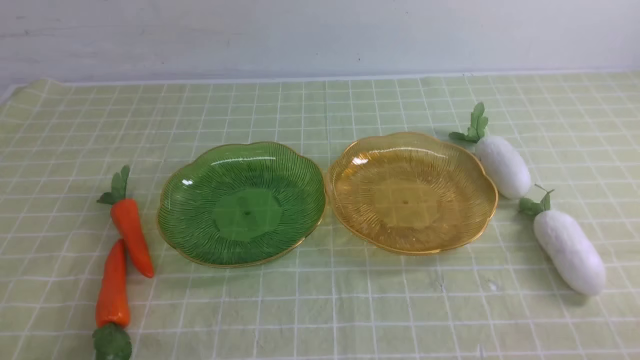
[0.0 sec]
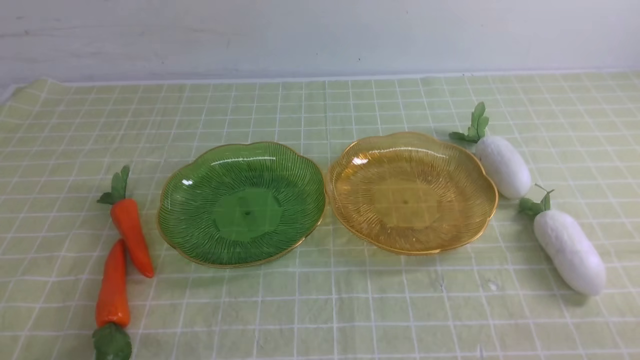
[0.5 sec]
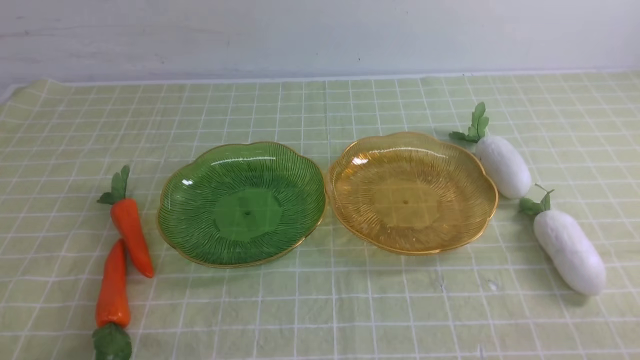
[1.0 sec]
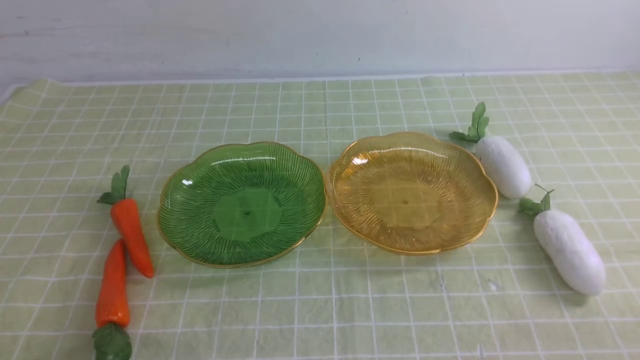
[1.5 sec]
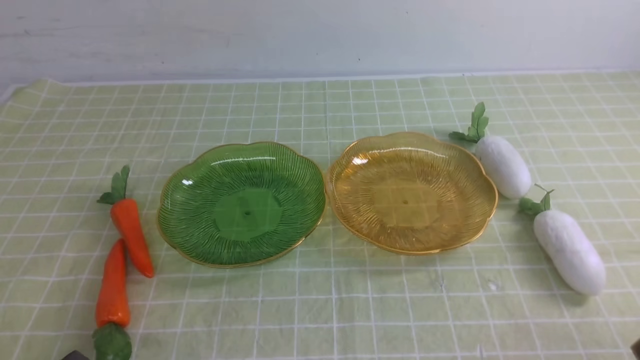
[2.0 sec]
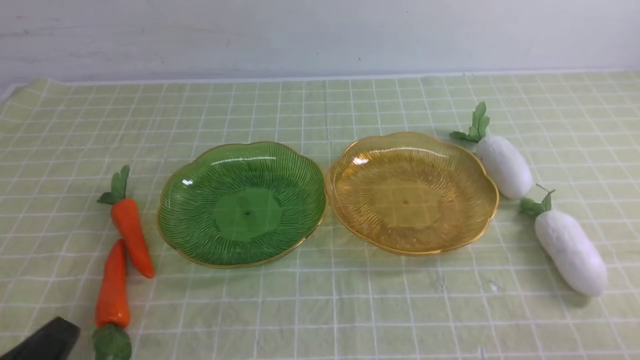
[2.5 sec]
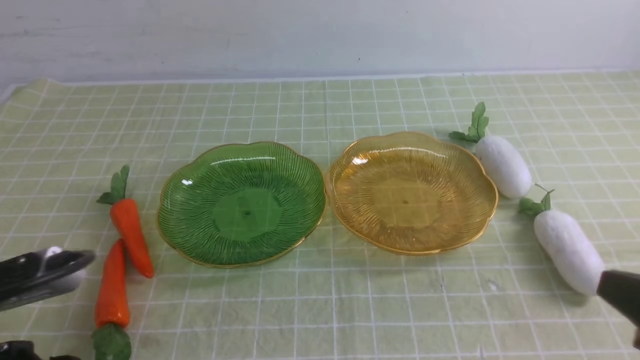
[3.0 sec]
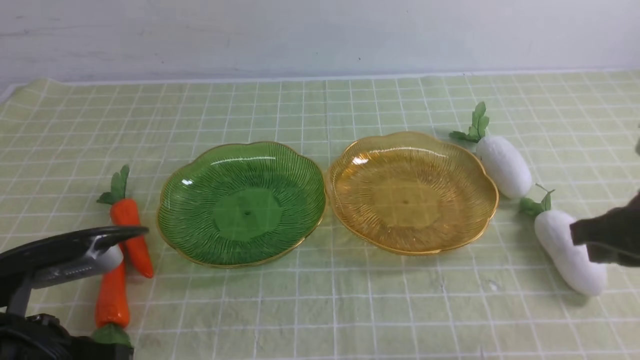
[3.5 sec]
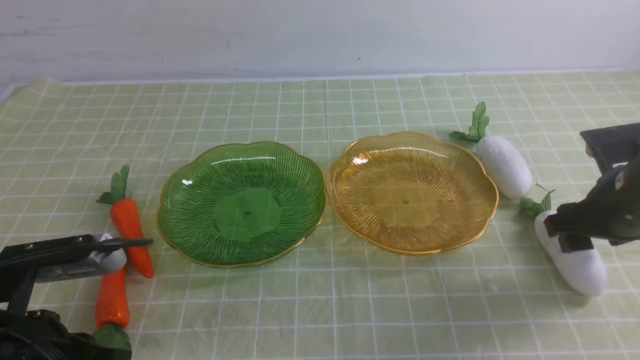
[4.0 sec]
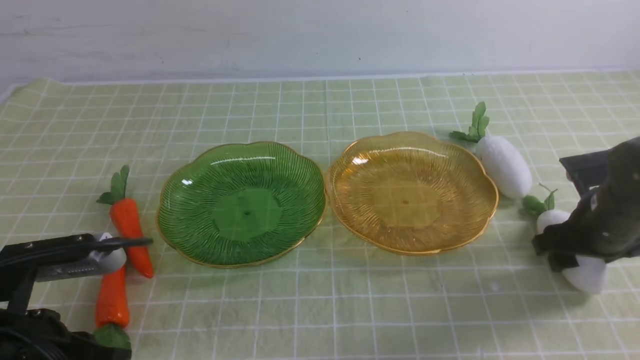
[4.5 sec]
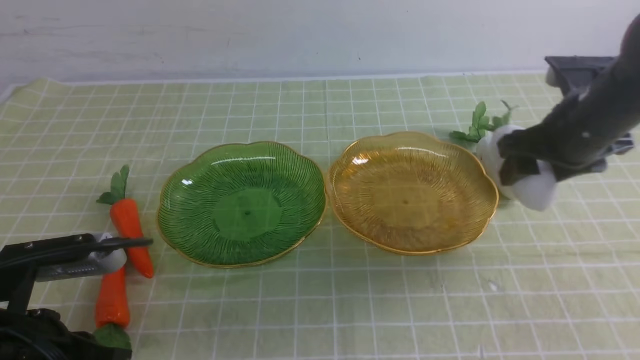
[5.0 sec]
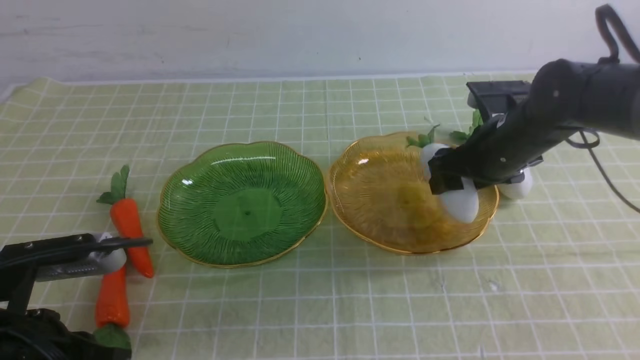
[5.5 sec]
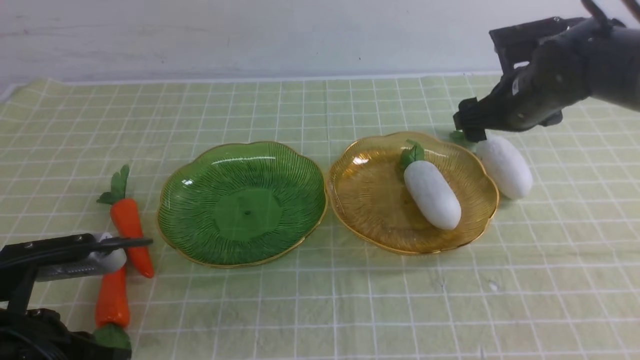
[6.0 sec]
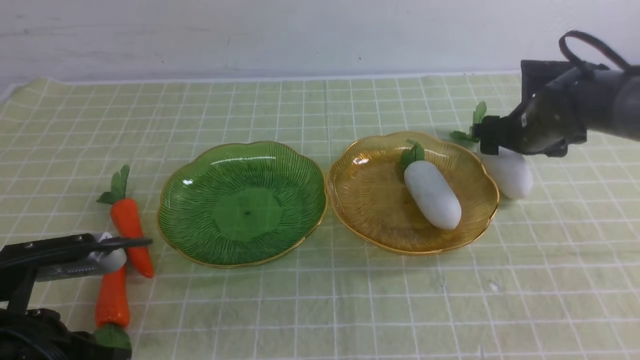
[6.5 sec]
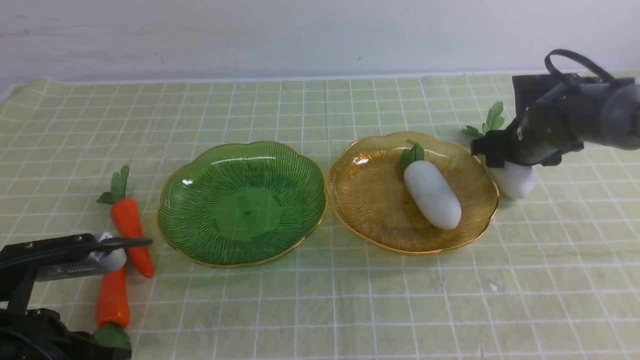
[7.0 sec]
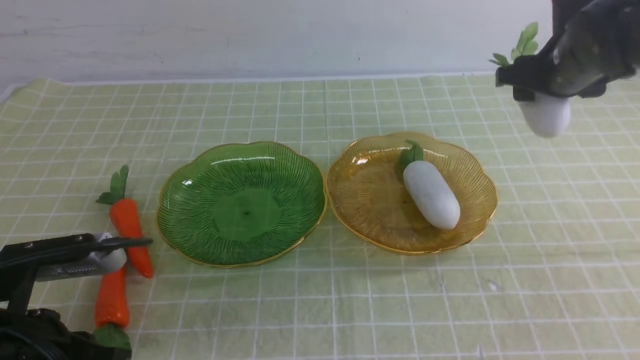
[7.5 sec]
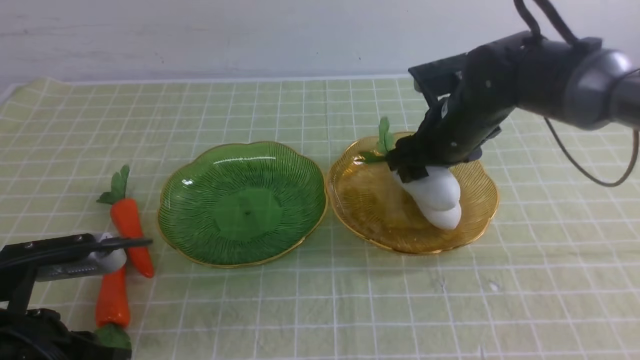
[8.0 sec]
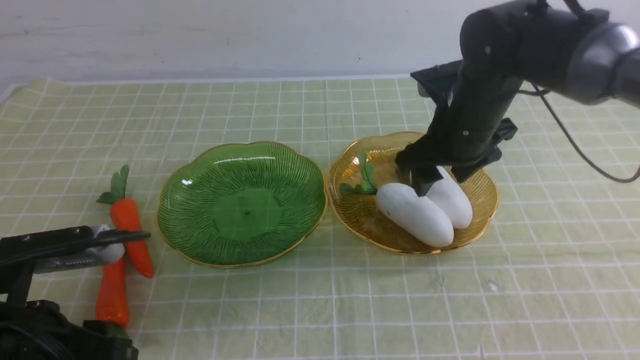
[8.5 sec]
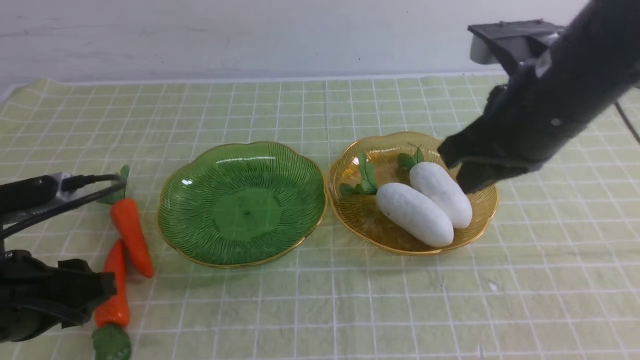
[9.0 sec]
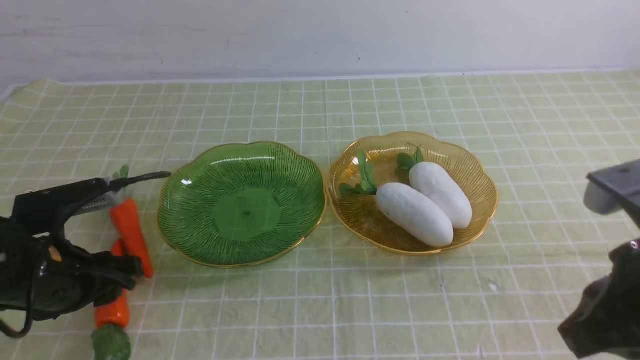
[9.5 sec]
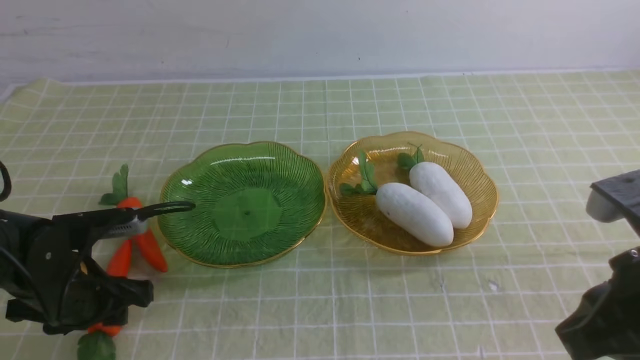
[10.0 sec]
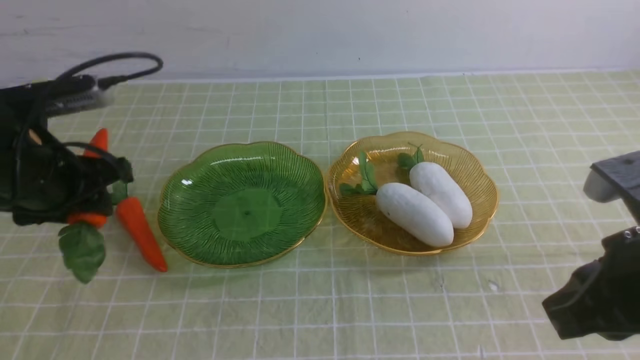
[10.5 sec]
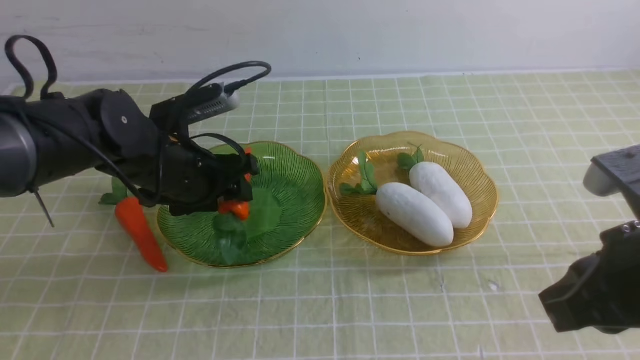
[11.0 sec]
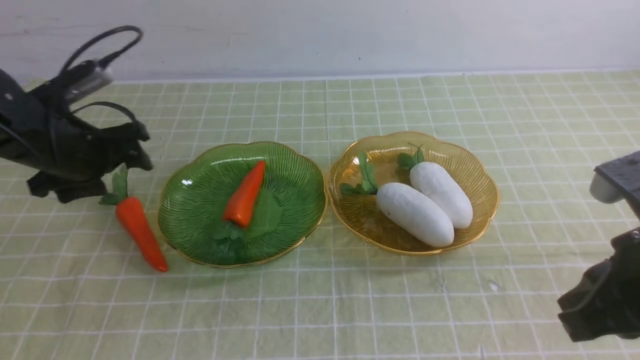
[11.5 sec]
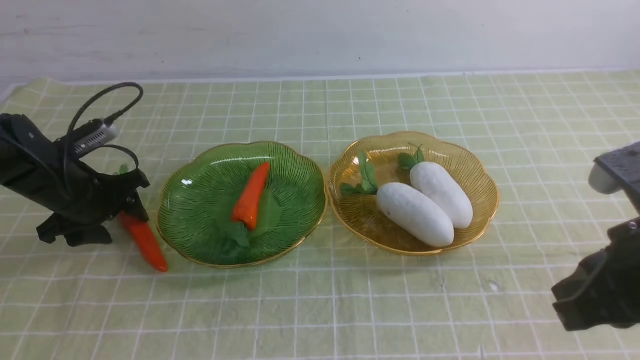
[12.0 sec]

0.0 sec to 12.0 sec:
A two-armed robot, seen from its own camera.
Step, 0.0 sec to 6.5 sec: use the right arm to grab a radish and put it into the right plate.
Step, 7.0 sec to 8.5 sec: use the right arm to grab a radish and put it into the right plate.
2.0 sec to 4.0 sec: The left gripper goes roughly 10 cm forward and upward. Meanwhile the right gripper shifts roughly 25 cm forward, and opens up.
4.0 sec to 6.0 sec: The right gripper shifts approximately 15 cm forward and to the left, and opens up.
6.0 sec to 8.0 sec: The right gripper shifts about 5 cm to the left.
8.0 sec to 10.0 sec: The right gripper travels backward by roughly 25 cm, and closes up; the left gripper shifts approximately 15 cm forward and downward, and opens.
10.0 sec to 12.0 sec: The left gripper travels forward by about 10 cm.

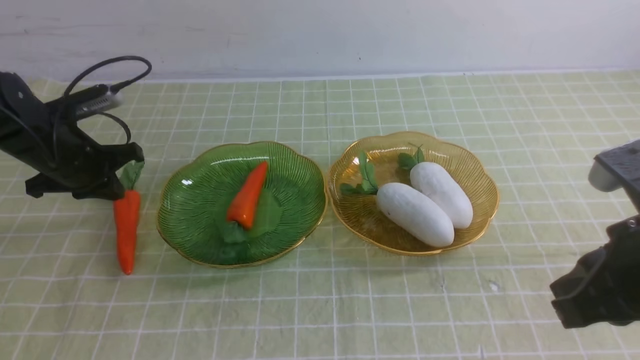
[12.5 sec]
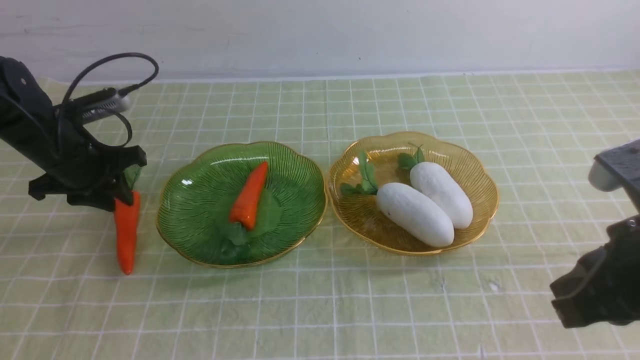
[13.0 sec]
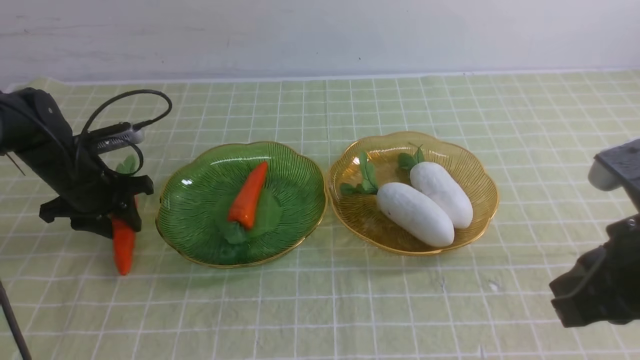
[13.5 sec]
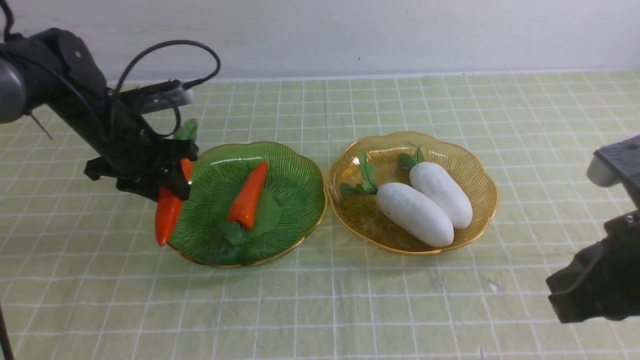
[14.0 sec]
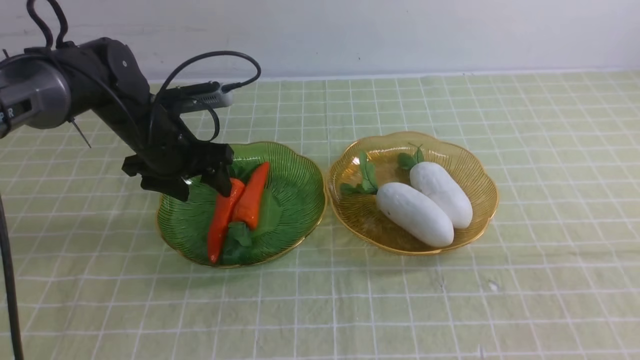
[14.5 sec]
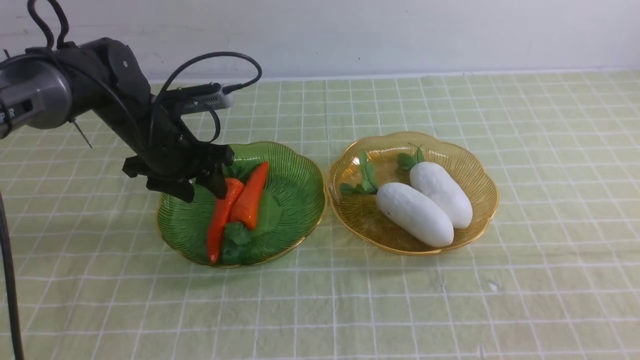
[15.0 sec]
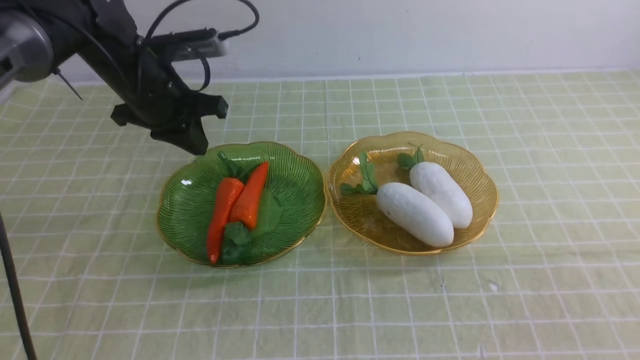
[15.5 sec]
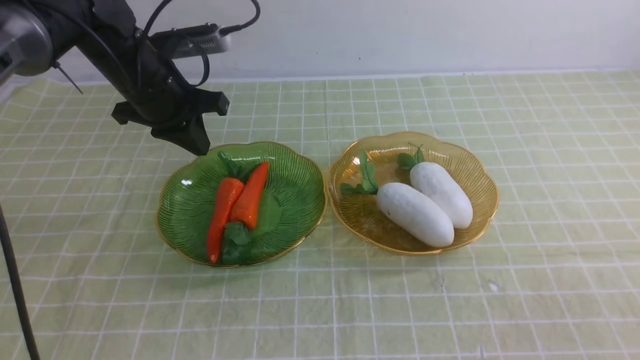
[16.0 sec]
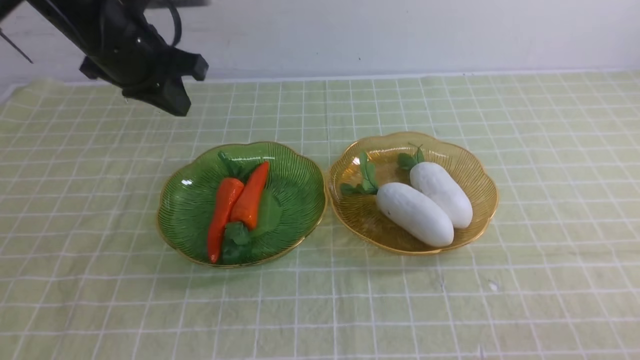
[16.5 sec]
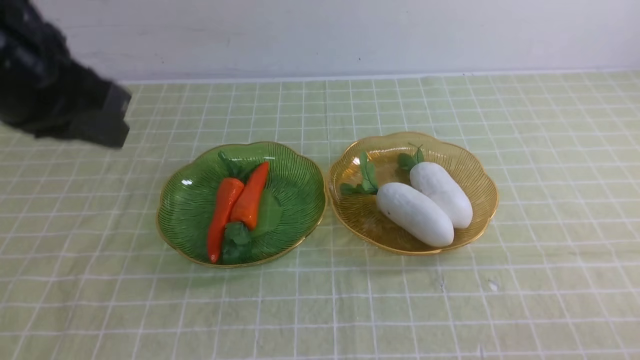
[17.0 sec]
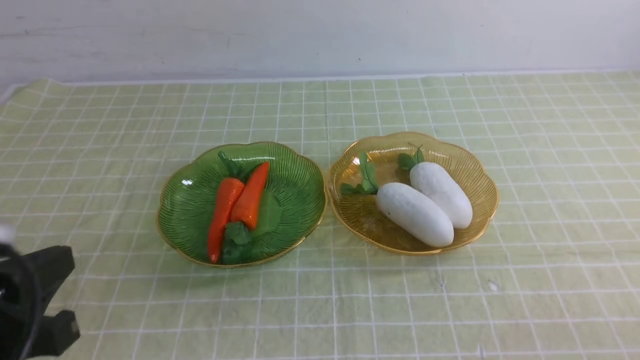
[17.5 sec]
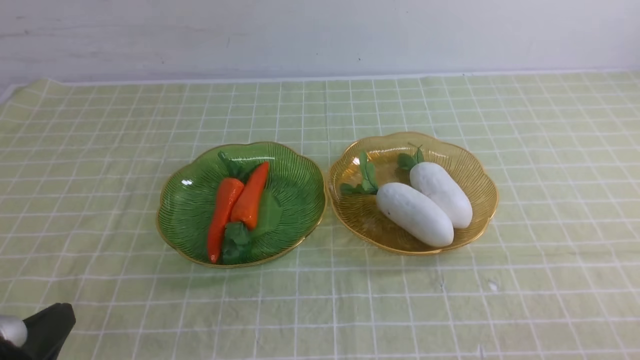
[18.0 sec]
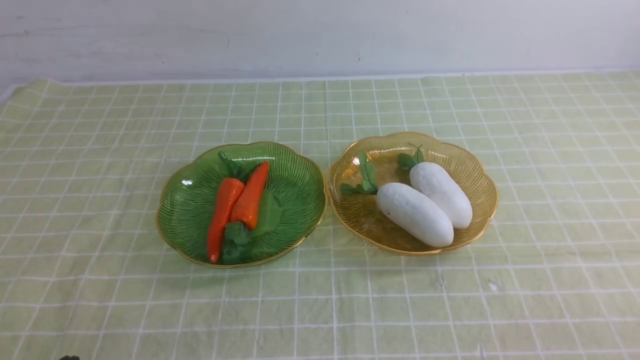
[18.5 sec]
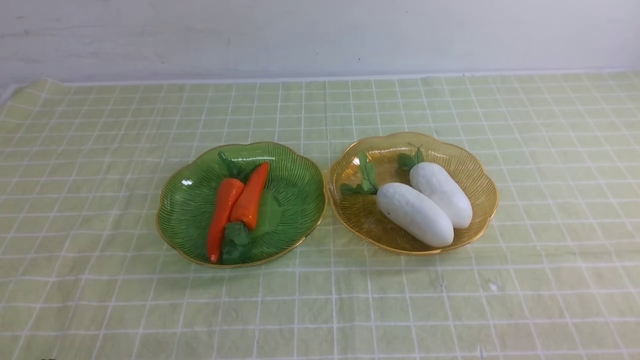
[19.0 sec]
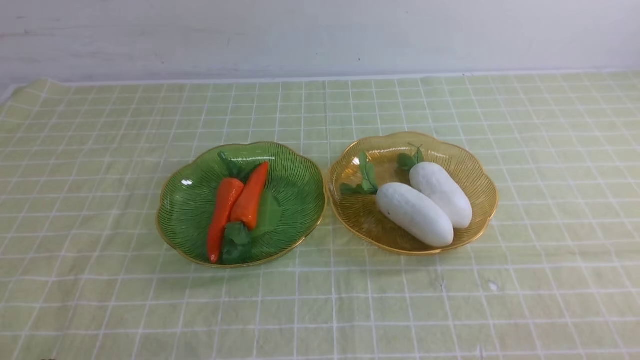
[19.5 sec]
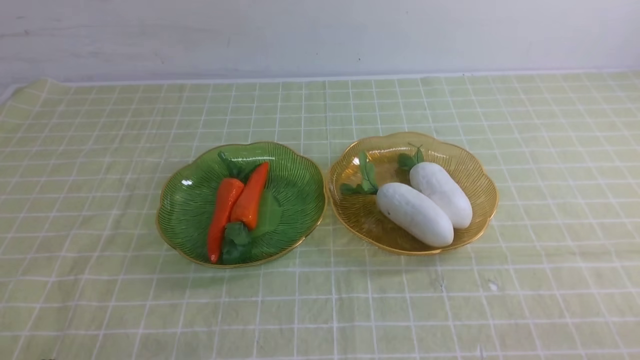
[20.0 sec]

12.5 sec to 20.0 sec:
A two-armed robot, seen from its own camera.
Step, 12.5 sec to 15.5 sec: use the left arm to grab a carrot and put it into the left plate.
12.5 sec to 14.5 sec: The right gripper heads backward, covering roughly 5 cm, while the left gripper moves to the right, some 10 cm, and opens its fingers.
14.5 sec to 16.5 sec: The left gripper is displaced upward by about 10 cm, and closes, while the right gripper moves downward, roughly 15 cm.
16.5 sec to 18.0 sec: The left gripper heads backward, covering about 35 cm.
18.0 sec to 20.0 sec: The left gripper travels downward by some 5 cm.
